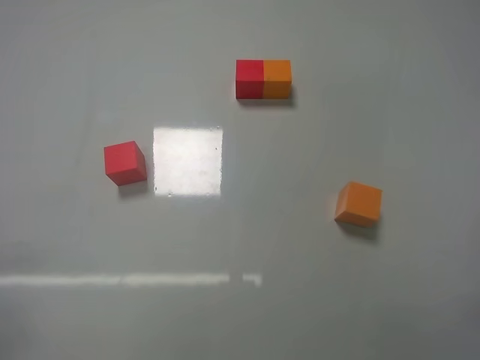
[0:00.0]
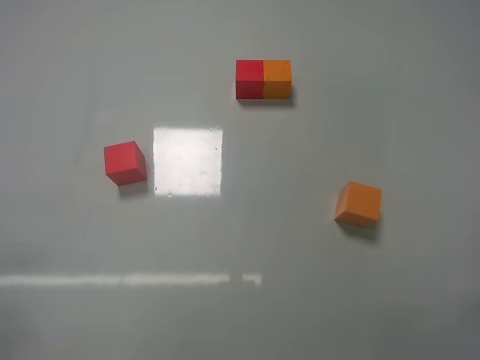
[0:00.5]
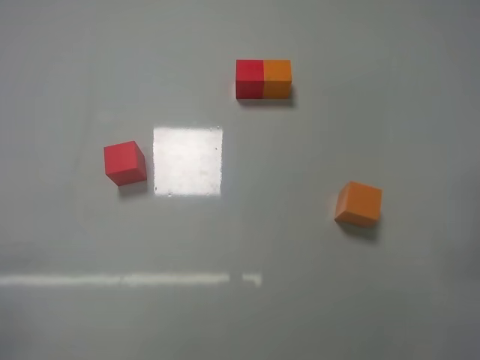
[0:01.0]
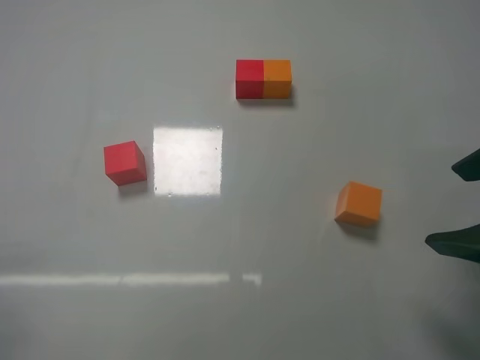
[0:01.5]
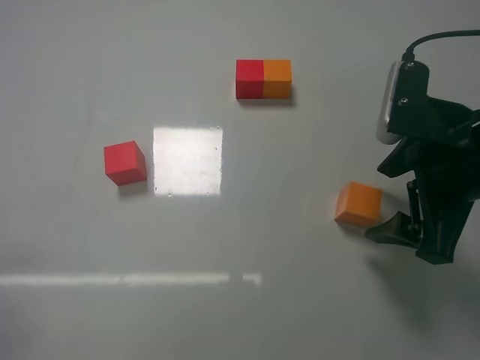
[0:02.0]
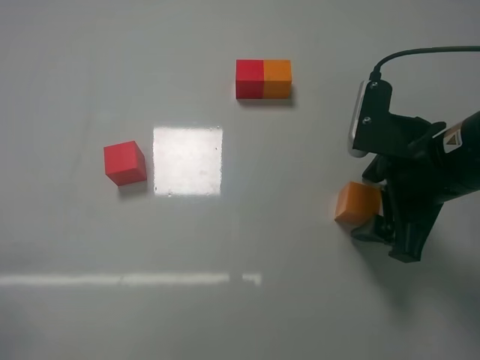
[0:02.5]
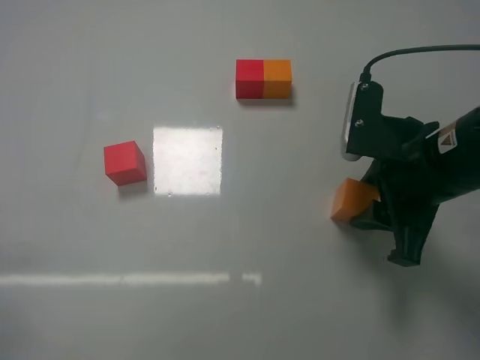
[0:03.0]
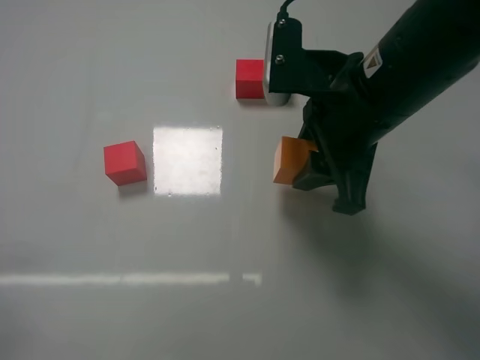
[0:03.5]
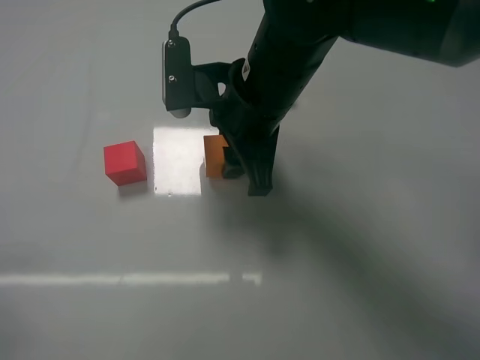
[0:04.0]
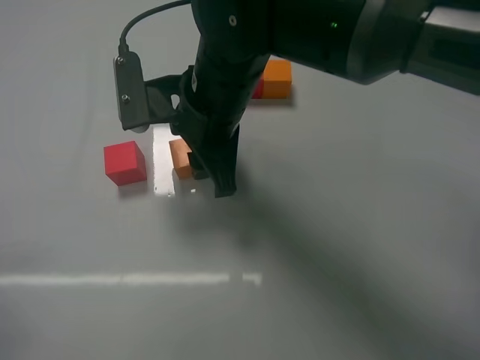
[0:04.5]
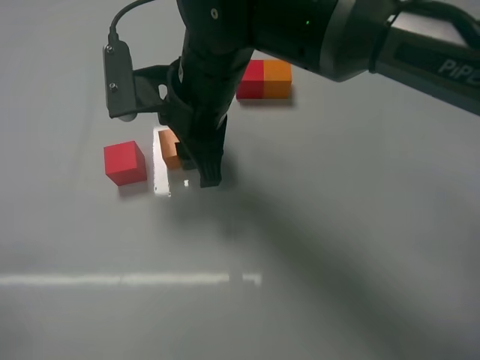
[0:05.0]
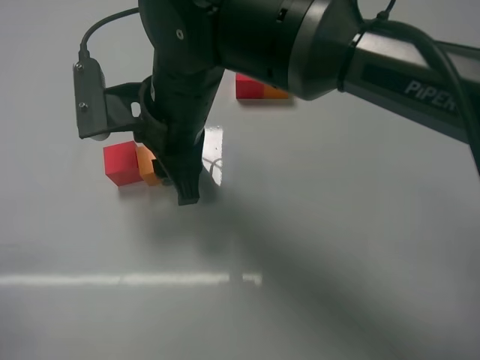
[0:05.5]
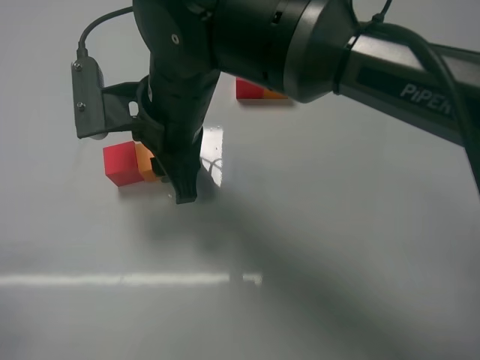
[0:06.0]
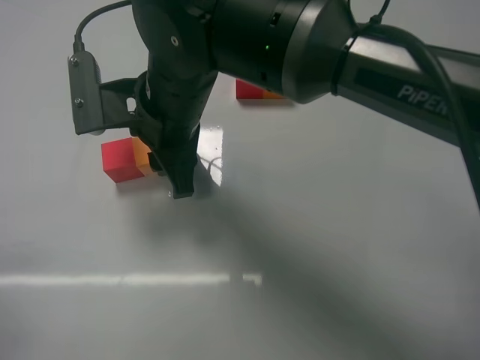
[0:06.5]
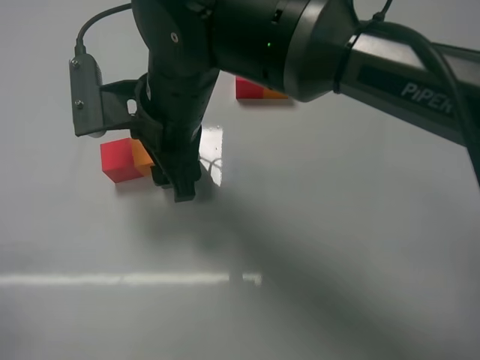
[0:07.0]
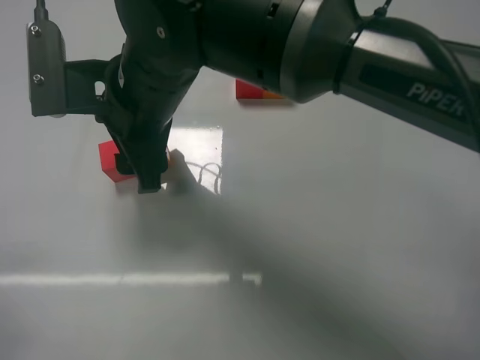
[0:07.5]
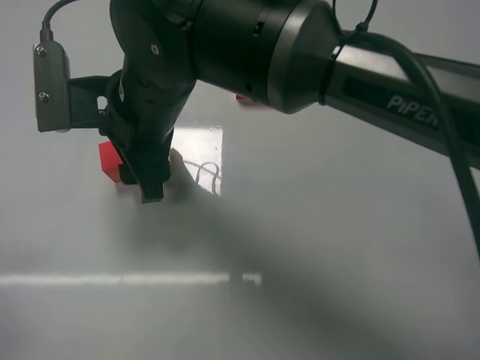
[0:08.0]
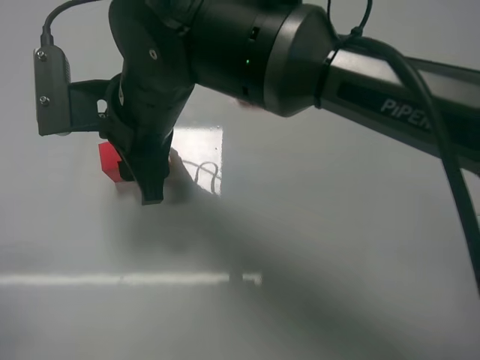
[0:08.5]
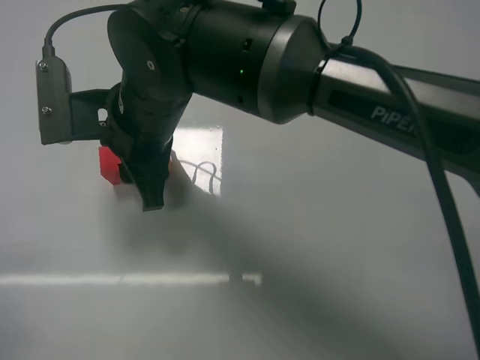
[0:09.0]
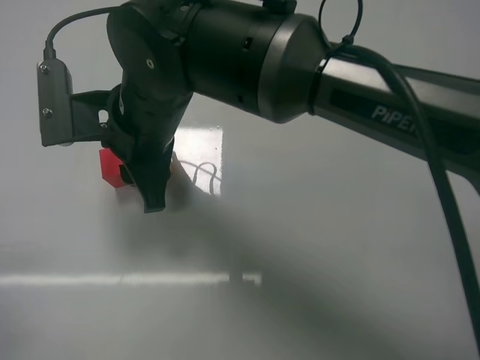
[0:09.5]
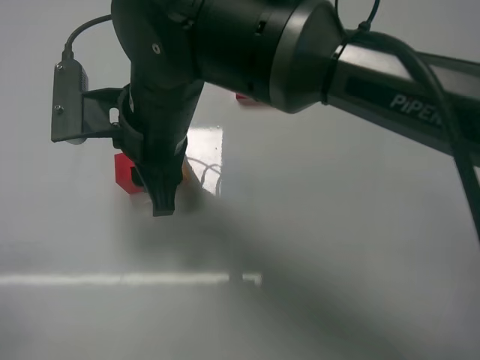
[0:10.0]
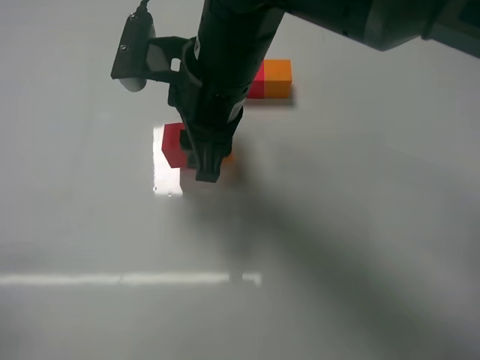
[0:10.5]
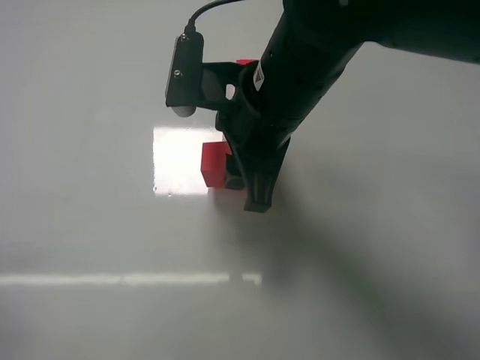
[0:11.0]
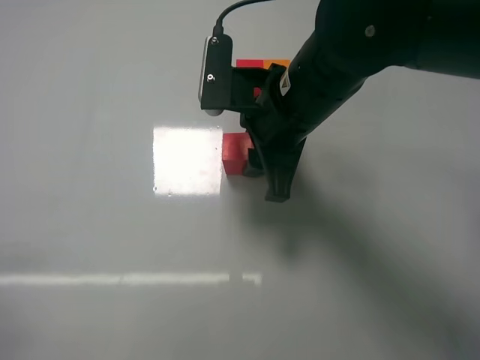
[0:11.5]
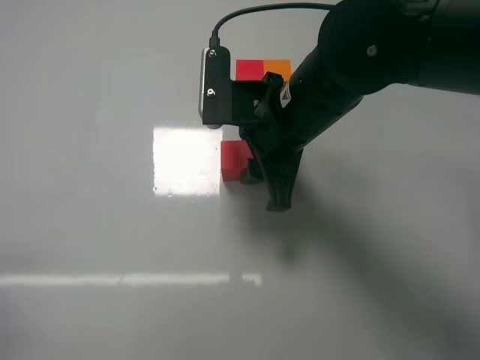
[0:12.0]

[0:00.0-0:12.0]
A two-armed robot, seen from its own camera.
Task of the whole recording: According to the building block template in front, assemble the scattered blocks together.
Step, 0:00.0 to 0:02.5: Grasp the orange block with right gripper.
Step, 0:03.0 to 0:07.0: Put the orange cube on the right of the red cube with the right gripper.
0:00.0 to 0:02.0: The right gripper goes roughly 25 cm forward and to the left, and opens up.
0:02.0 to 0:04.0: The left gripper closes up, while the right gripper travels to the left by roughly 20 cm, and closes.
0:04.0 to 0:06.0: The right gripper travels to the left by some 10 cm.
0:06.0 to 0:08.0: The right gripper opens.
0:08.0 to 0:10.0: The right gripper closes its fingers.
0:10.0 to 0:12.0: The right gripper goes roughly 15 cm to the right.

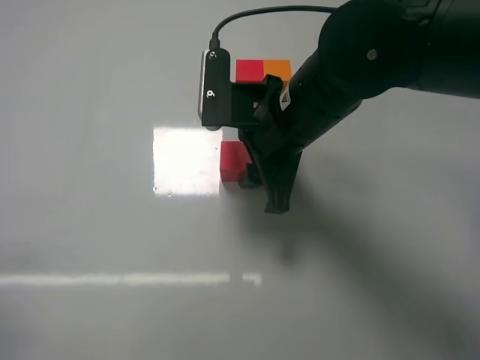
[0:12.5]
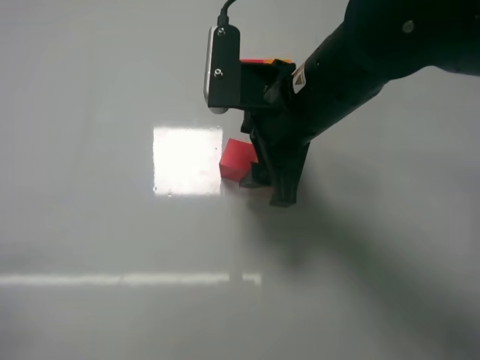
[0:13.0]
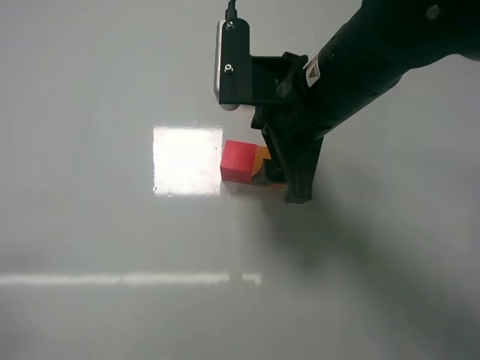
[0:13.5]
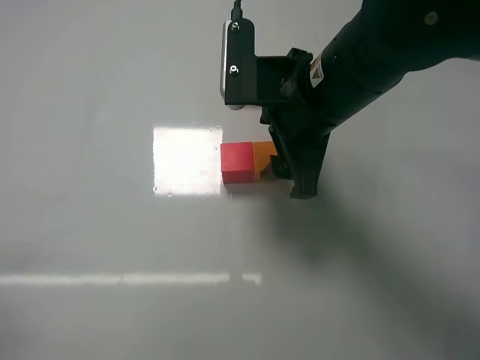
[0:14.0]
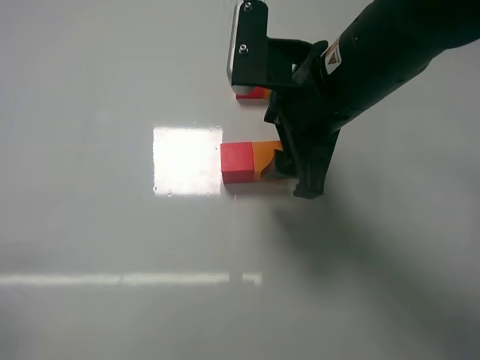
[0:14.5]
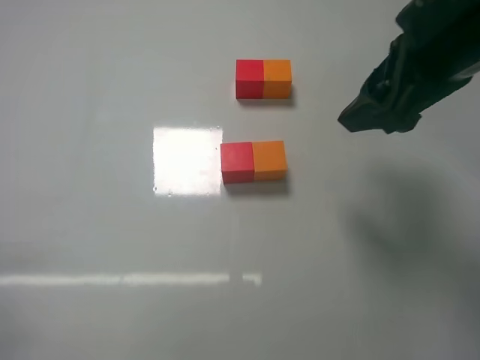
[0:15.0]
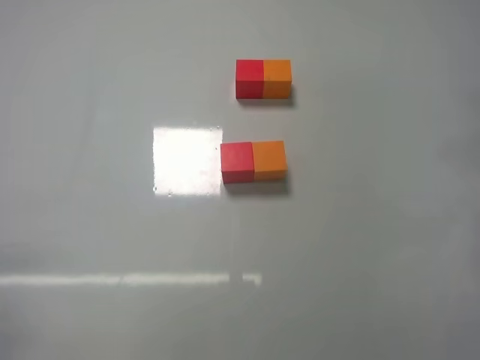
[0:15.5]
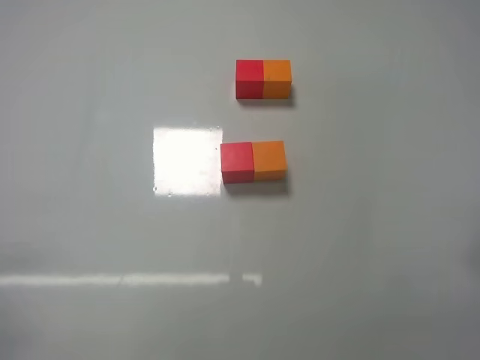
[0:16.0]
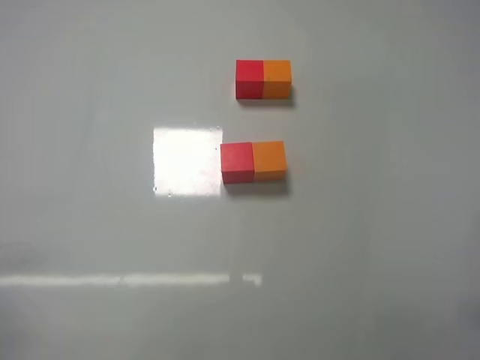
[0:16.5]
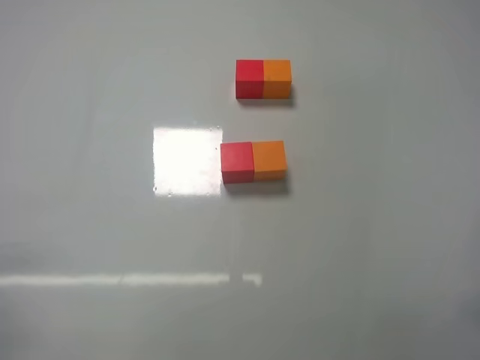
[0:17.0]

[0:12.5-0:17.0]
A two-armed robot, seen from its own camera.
Task of the whole recording: According to the building block template in front, assemble the scattered blocks together.
Step, 0:13.5 to 0:14.0: Adjust the position of the cube with the right gripper.
0:12.5 to 0:14.5: The right gripper shifts by approximately 5 cm, and opens.
0:14.5 to 0:17.0: The right gripper heads backward, to the right and downward, covering about 35 cm.
